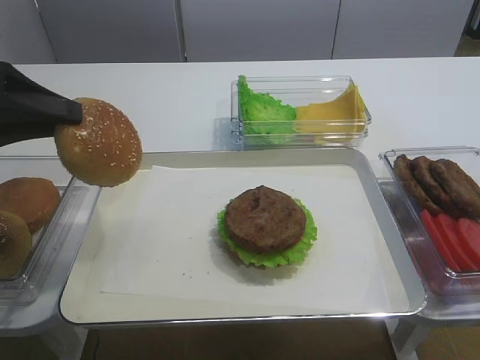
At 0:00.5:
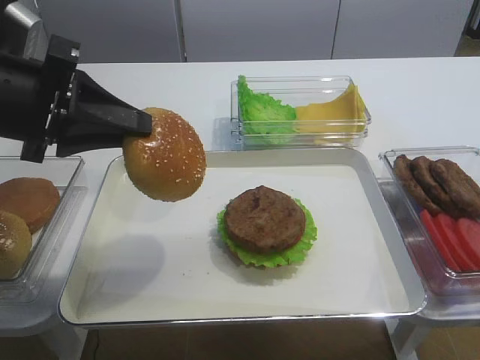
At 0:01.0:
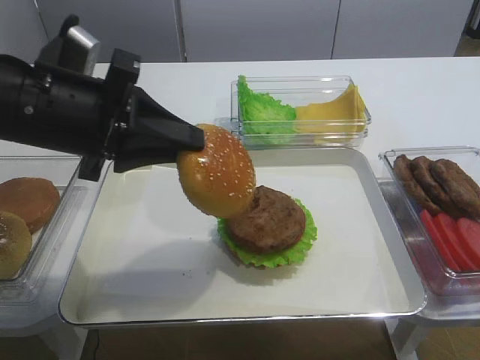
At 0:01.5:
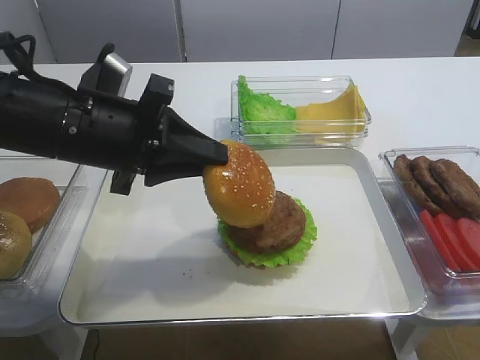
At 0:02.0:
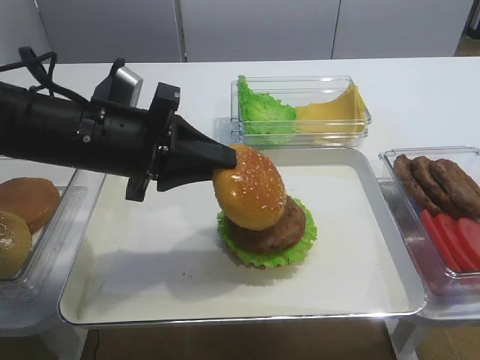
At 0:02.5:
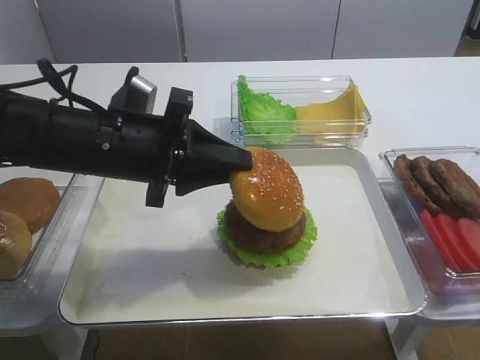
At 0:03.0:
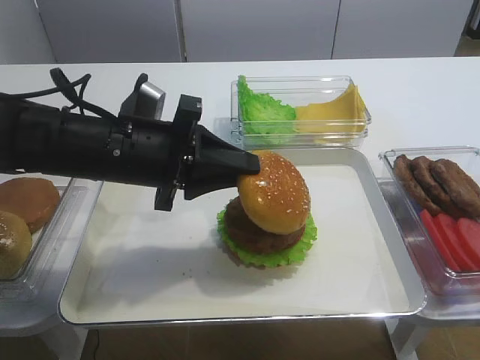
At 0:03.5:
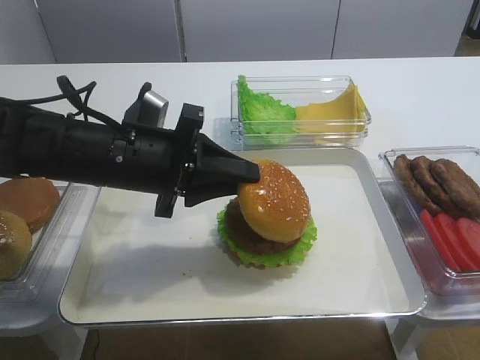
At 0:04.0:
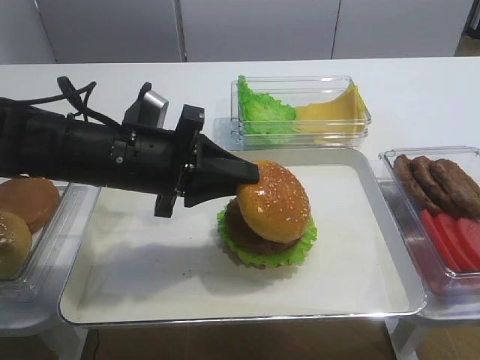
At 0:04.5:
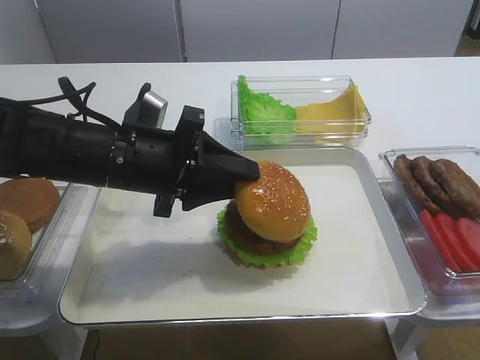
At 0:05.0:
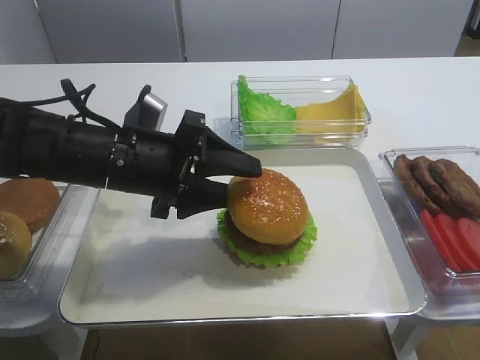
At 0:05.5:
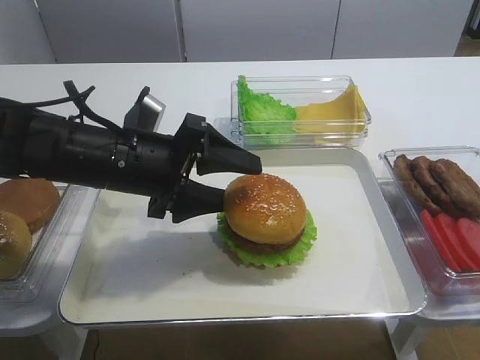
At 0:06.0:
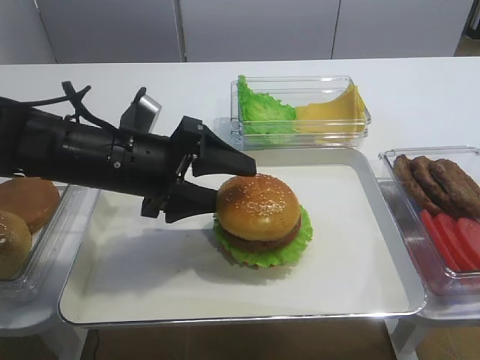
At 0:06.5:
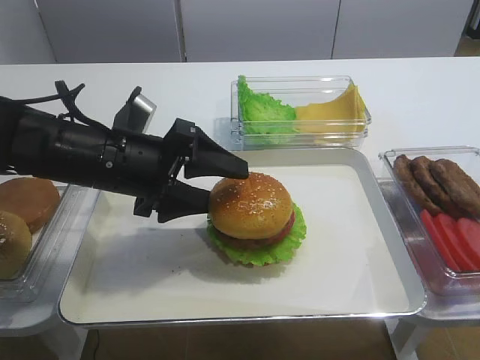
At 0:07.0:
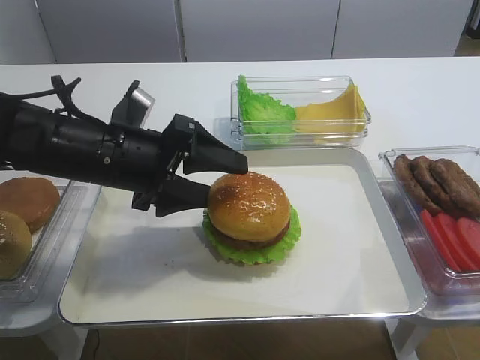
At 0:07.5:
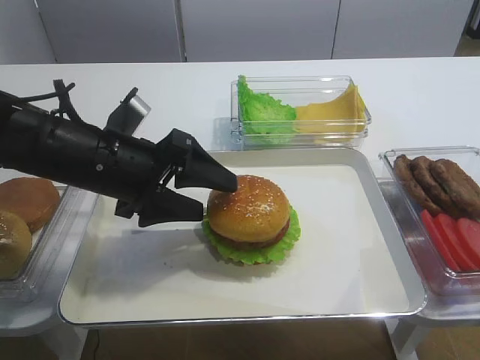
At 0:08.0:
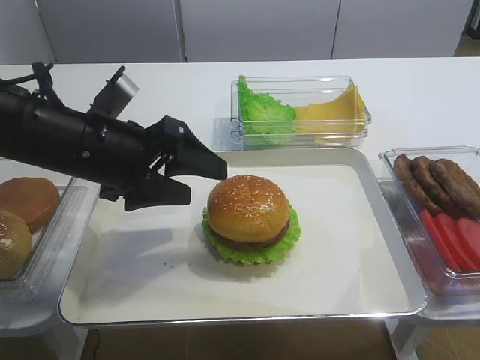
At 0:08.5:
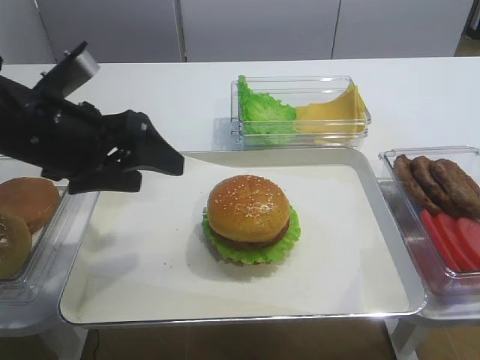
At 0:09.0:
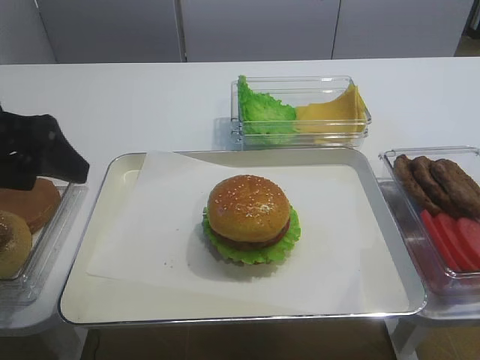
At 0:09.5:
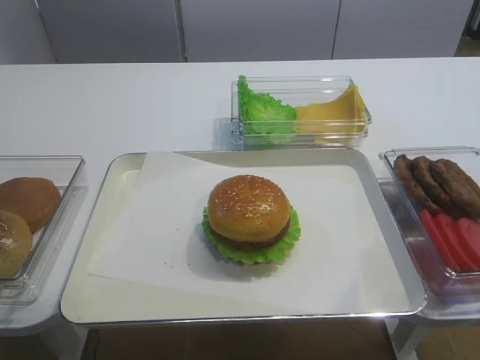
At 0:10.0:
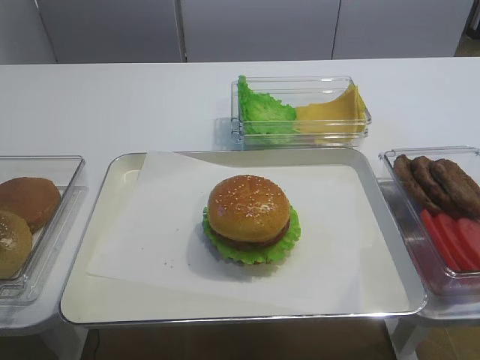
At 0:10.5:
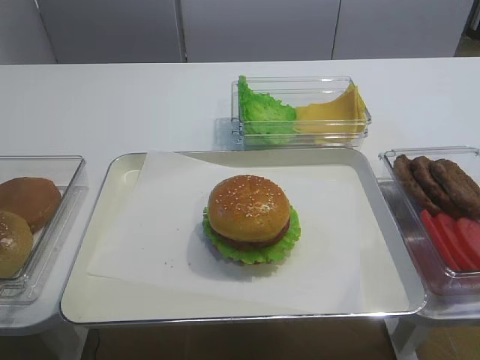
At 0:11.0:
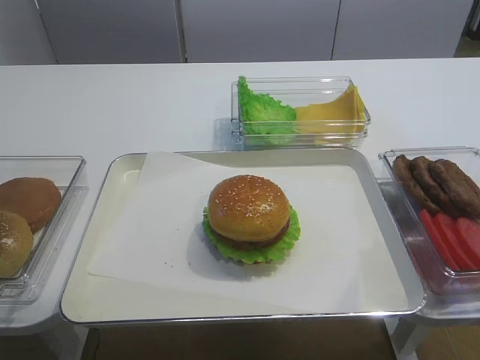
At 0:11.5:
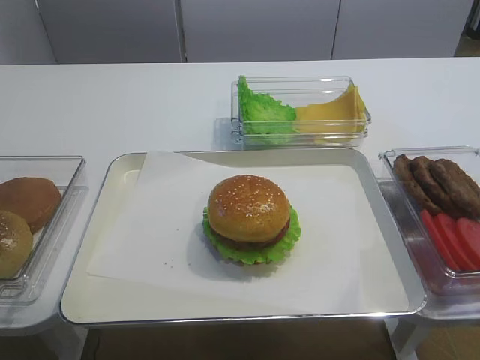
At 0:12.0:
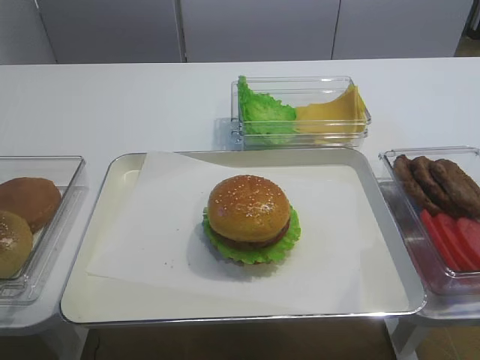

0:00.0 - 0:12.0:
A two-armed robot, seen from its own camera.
Step, 0:00.0 - 0:07.5: Place the hamburger lid on the cutlet slice with the left gripper.
0:00.0 - 0:02.0: The left gripper is displaced to the right and downward by about 15 cm.
0:02.0 - 0:04.0: The grippers make only small movements.
0:04.0 - 0:06.0: The left gripper opens up.
0:06.0 - 0:08.0: The grippers move only a little.
0:08.0 - 0:10.0: The left gripper heads backward, to the left and upward, covering roughly 25 cm.

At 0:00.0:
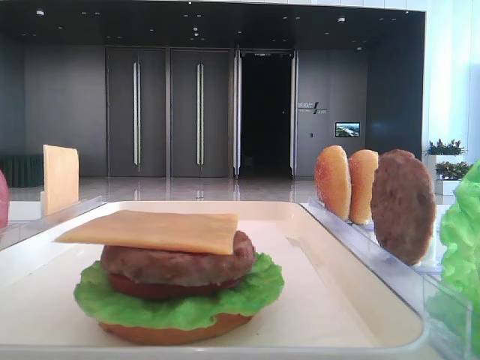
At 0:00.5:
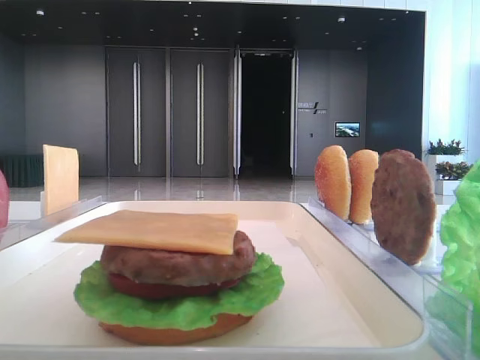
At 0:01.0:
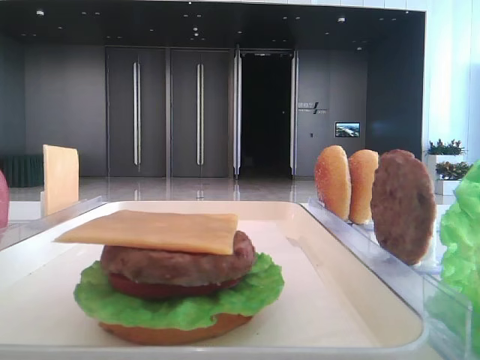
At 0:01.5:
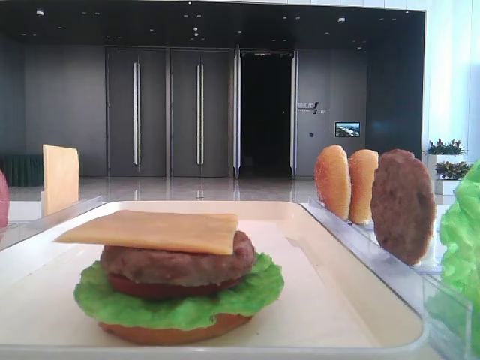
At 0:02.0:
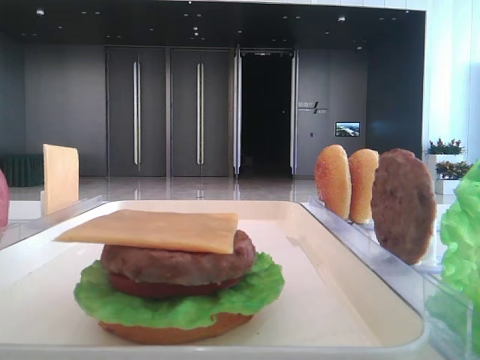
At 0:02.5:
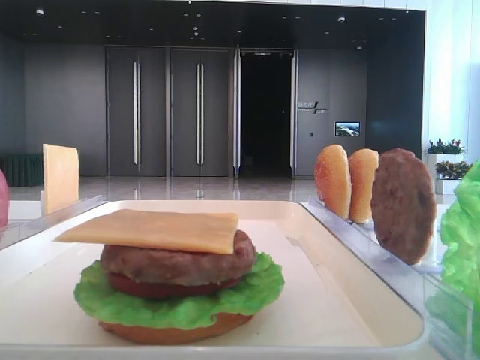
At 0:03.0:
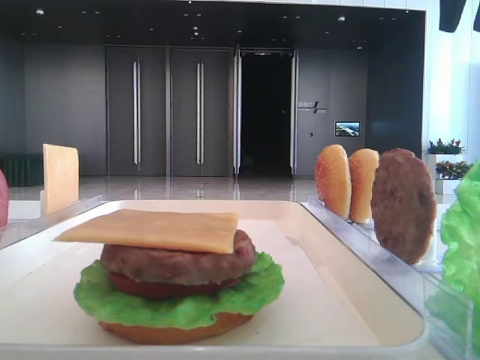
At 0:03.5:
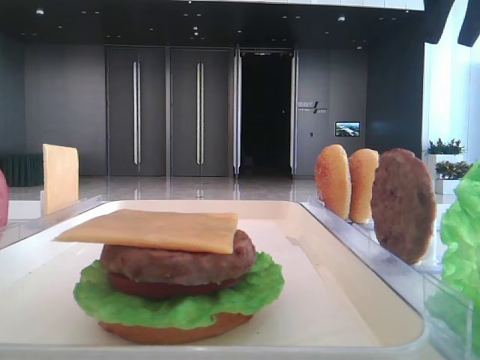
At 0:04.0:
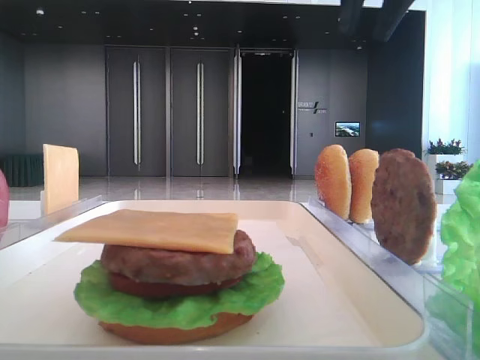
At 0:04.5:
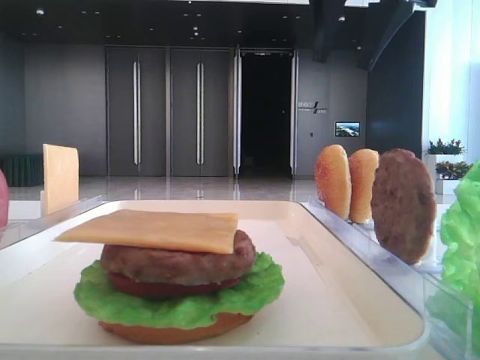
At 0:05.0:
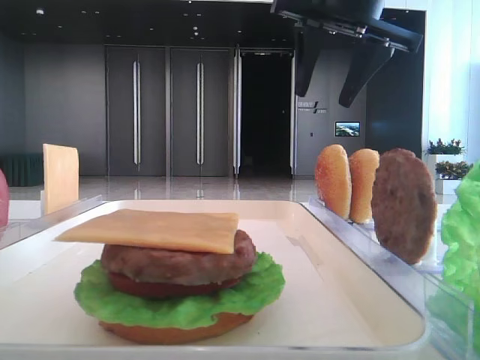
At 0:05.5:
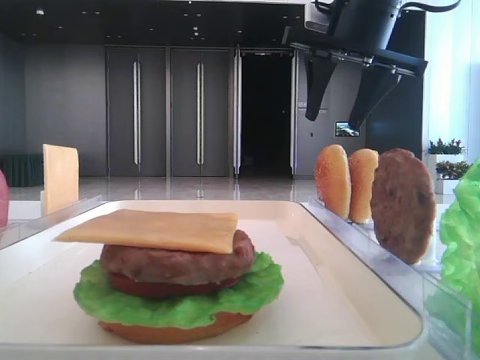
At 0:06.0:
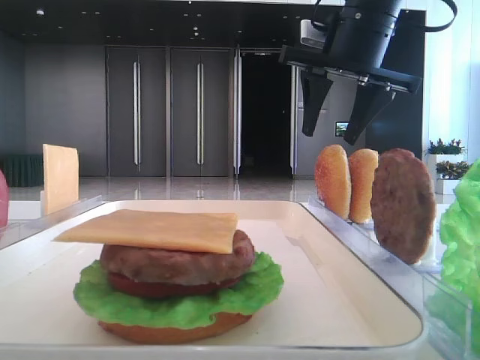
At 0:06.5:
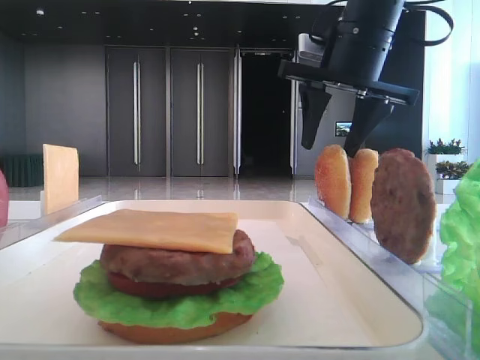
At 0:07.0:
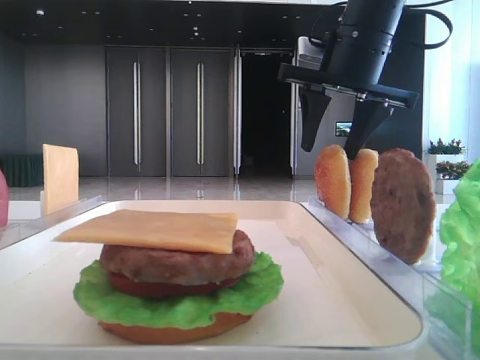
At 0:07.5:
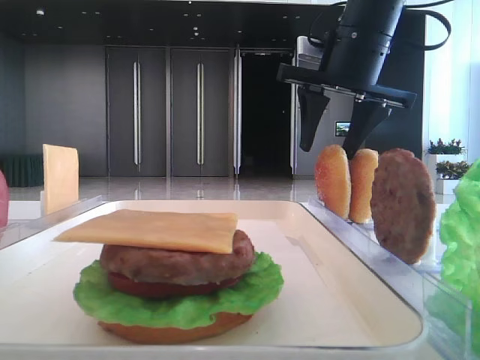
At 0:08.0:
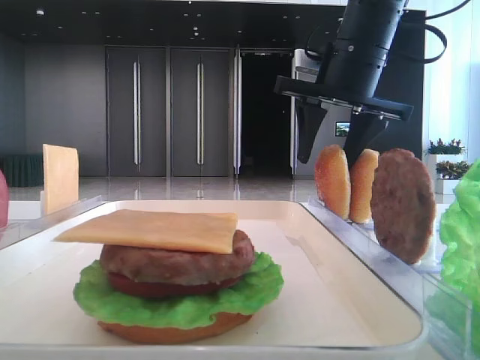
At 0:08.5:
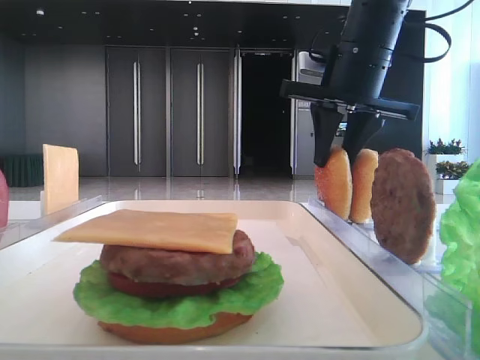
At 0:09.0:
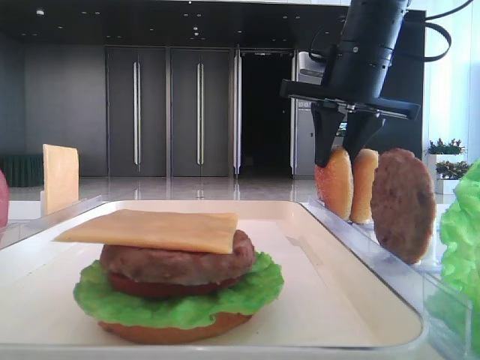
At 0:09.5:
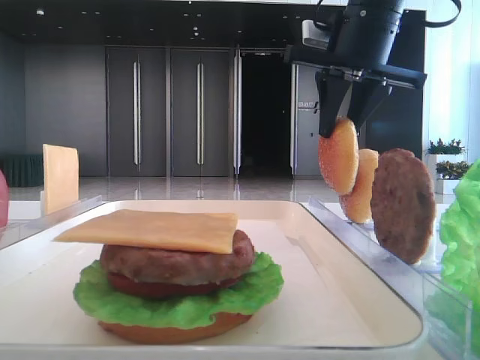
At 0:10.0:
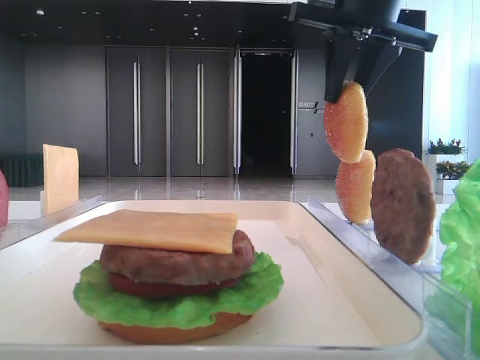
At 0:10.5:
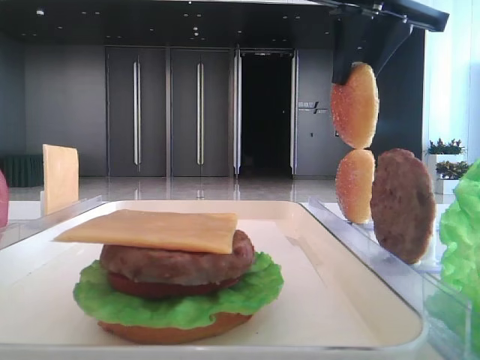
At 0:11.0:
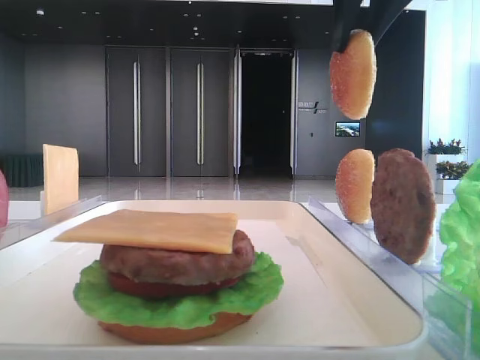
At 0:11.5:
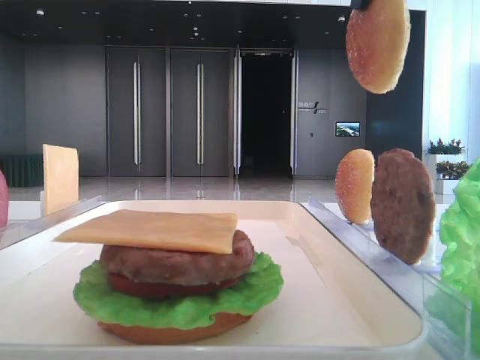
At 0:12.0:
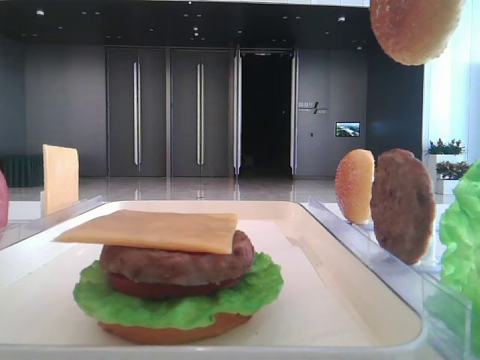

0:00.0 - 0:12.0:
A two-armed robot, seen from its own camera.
Step, 0:00.0 - 0:09.0: Pick up the top bread slice with the right hand.
0:04.0 - 0:06.0: The right gripper travels downward and forward by approximately 10 cm.
0:06.0 - 0:08.0: There are only small adjustments of the grippers.
0:08.0 - 0:10.0: The right gripper goes roughly 5 cm upward, and closes its fingers.
0:10.0 - 0:12.0: The right gripper travels backward by some 20 cm.

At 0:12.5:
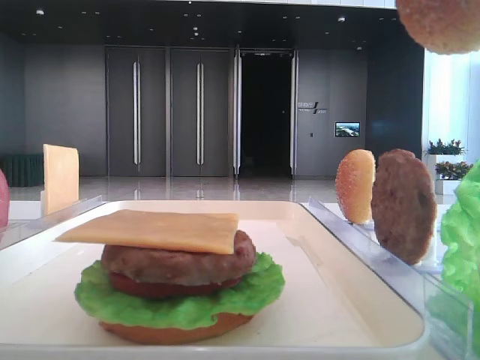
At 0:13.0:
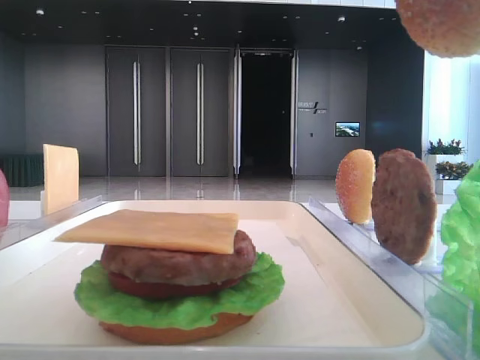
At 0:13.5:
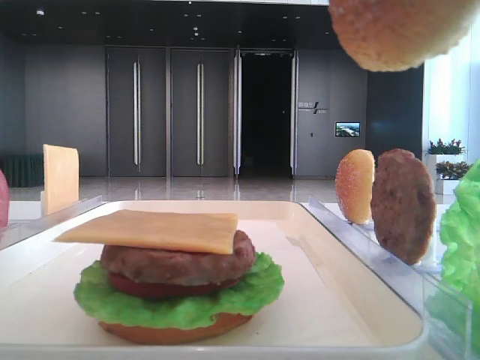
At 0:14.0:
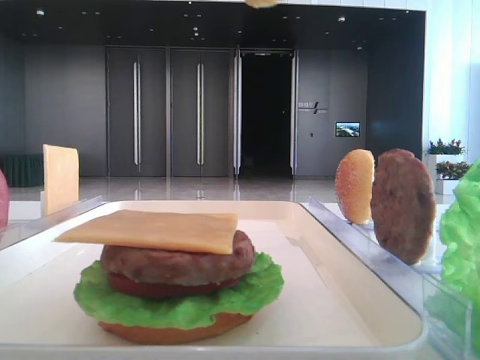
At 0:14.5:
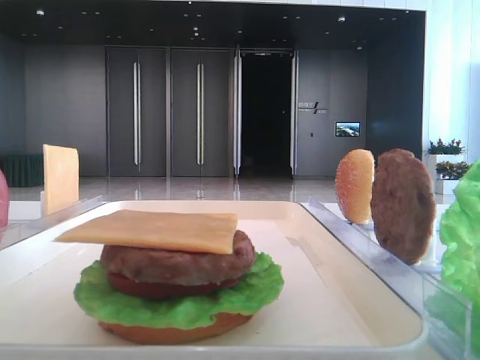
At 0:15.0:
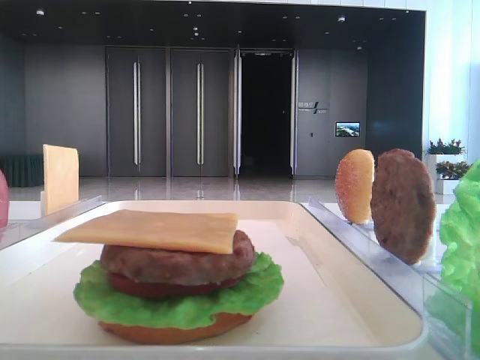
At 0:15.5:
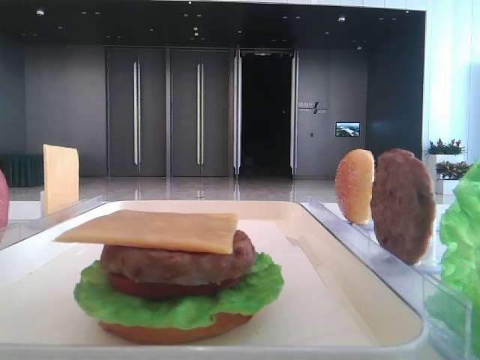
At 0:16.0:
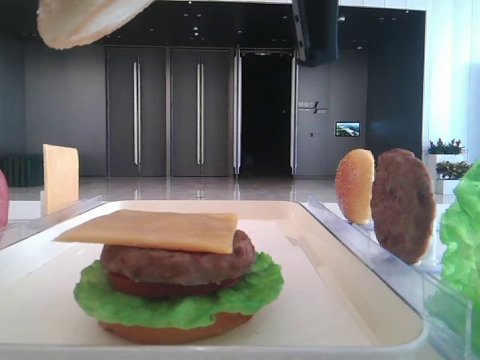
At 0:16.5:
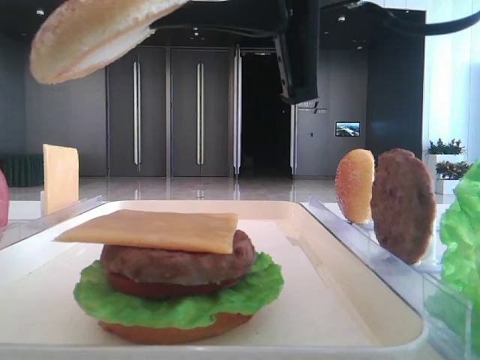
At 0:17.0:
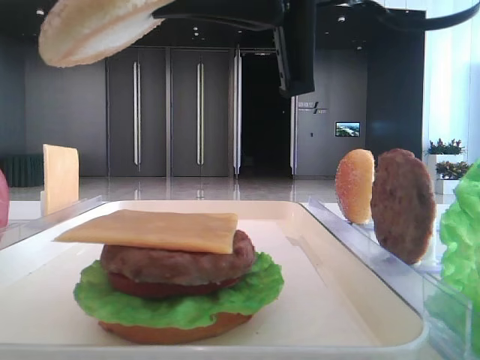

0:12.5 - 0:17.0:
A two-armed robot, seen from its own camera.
0:12.5 - 0:14.5: The right gripper goes some 5 cm to the left.
0:14.5 - 0:17.0: The right gripper goes some 15 cm forward and downward.
